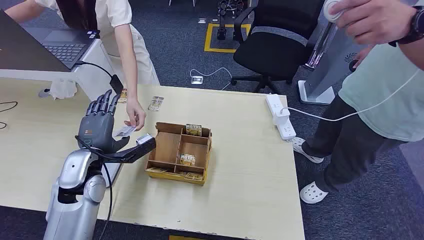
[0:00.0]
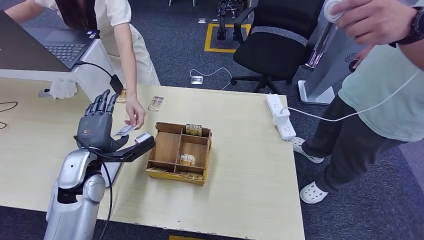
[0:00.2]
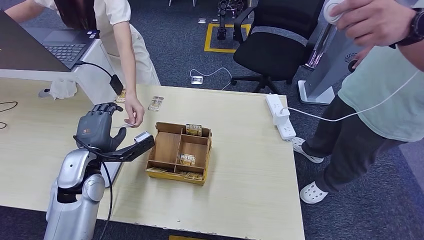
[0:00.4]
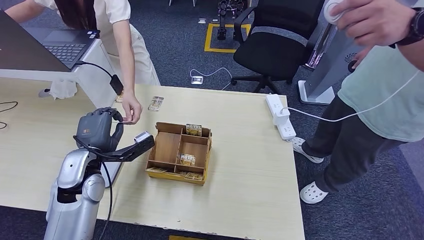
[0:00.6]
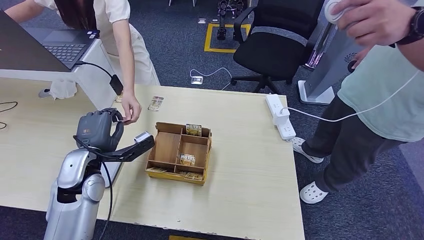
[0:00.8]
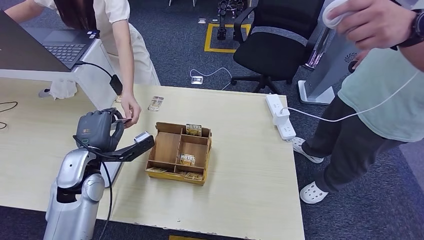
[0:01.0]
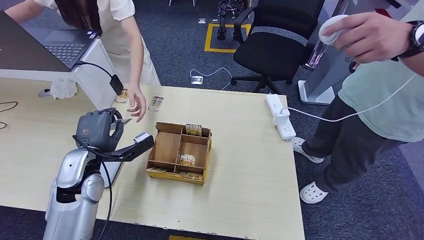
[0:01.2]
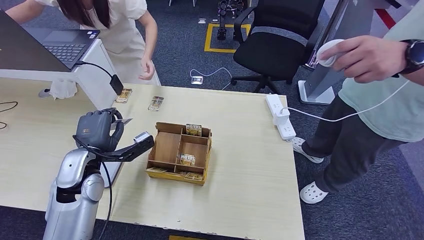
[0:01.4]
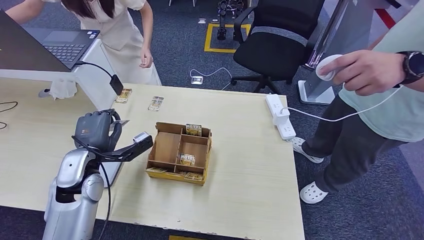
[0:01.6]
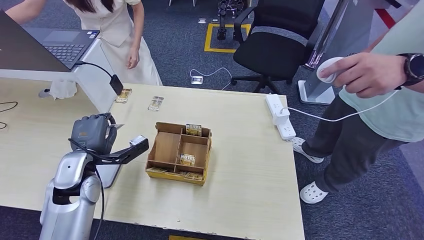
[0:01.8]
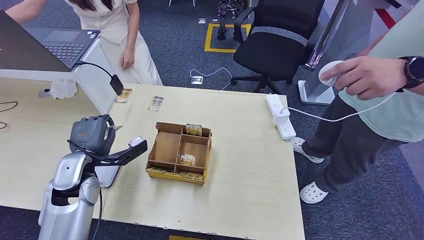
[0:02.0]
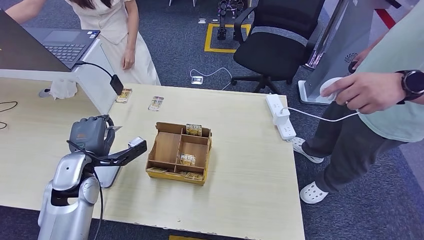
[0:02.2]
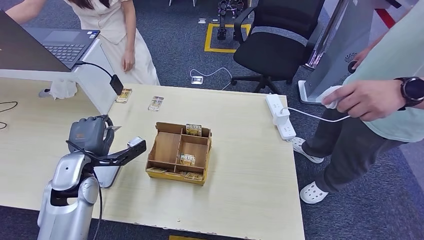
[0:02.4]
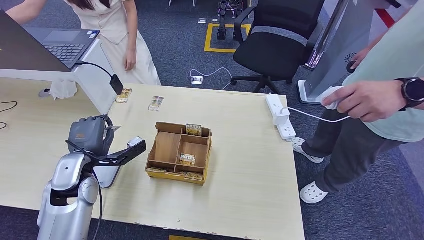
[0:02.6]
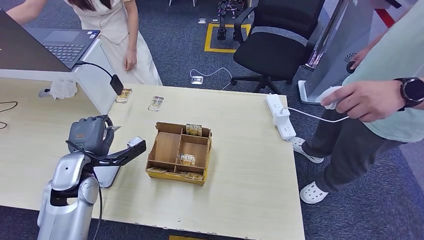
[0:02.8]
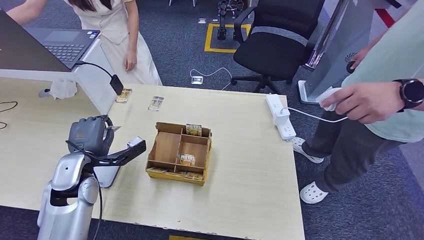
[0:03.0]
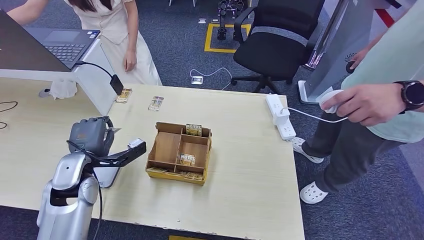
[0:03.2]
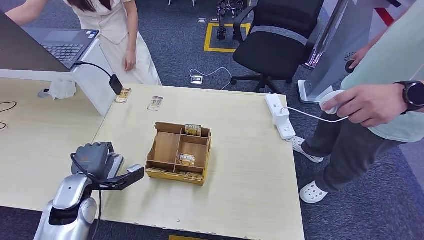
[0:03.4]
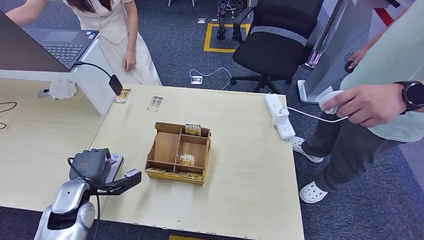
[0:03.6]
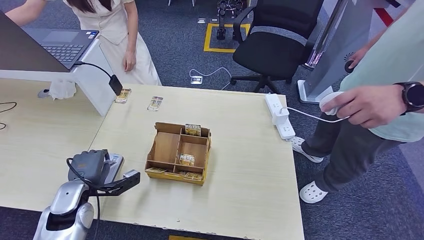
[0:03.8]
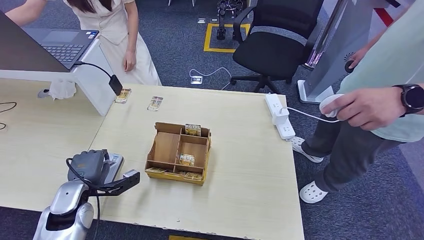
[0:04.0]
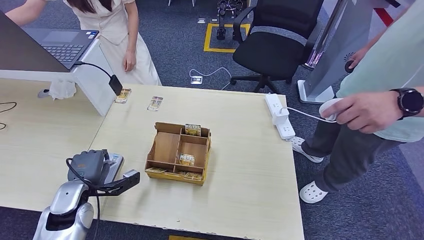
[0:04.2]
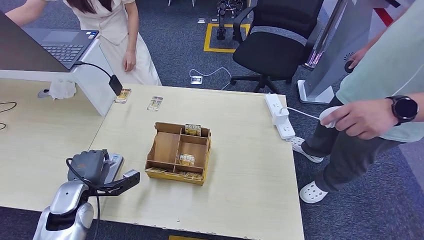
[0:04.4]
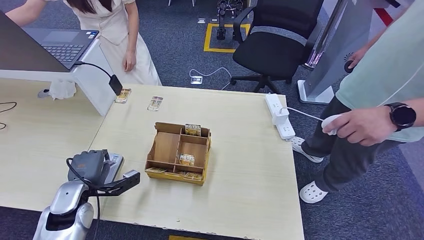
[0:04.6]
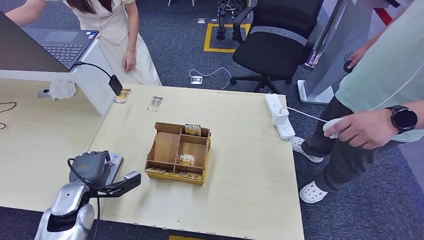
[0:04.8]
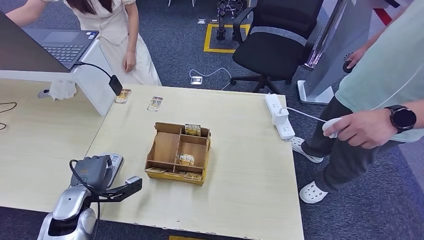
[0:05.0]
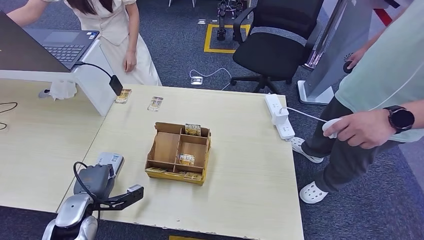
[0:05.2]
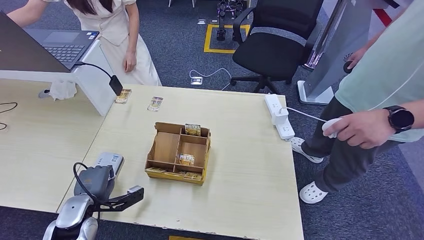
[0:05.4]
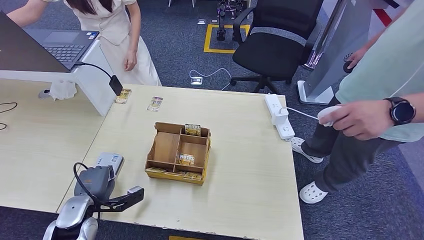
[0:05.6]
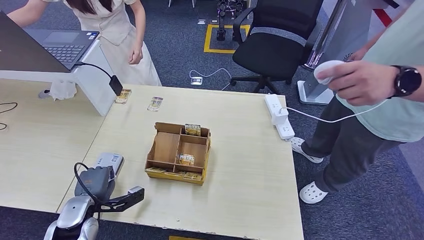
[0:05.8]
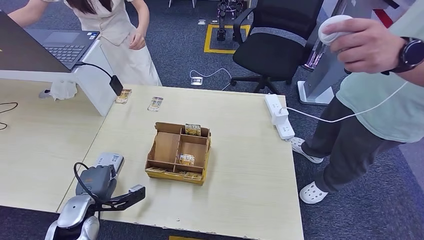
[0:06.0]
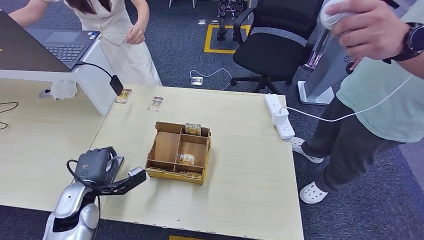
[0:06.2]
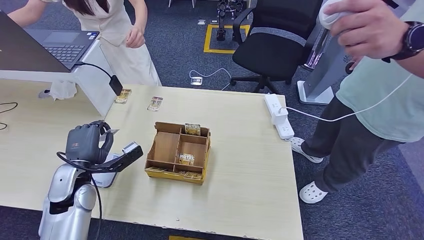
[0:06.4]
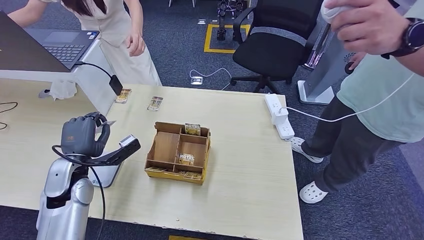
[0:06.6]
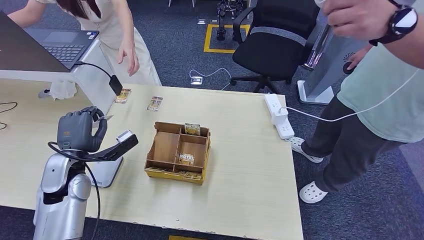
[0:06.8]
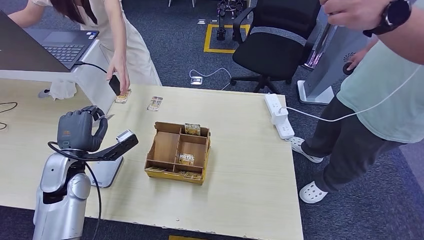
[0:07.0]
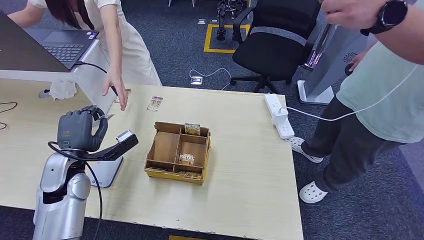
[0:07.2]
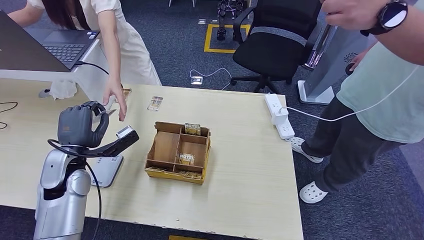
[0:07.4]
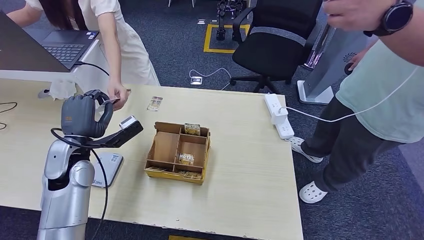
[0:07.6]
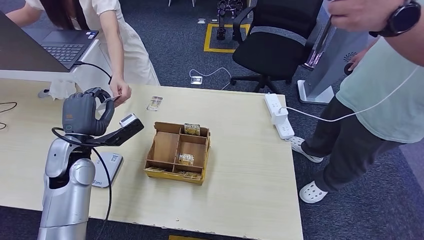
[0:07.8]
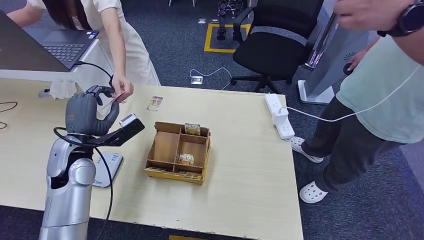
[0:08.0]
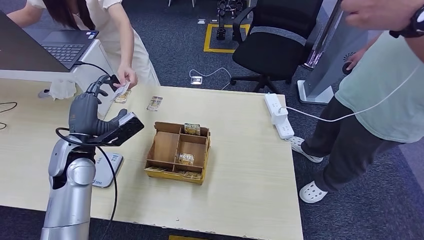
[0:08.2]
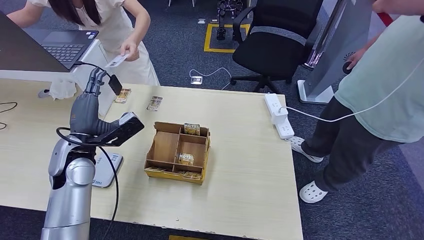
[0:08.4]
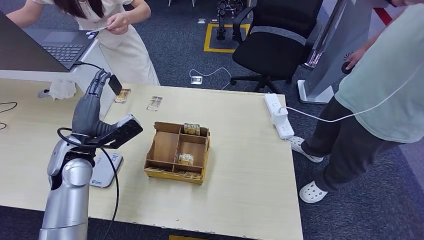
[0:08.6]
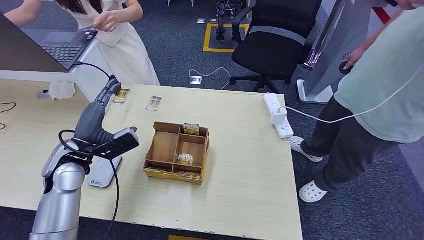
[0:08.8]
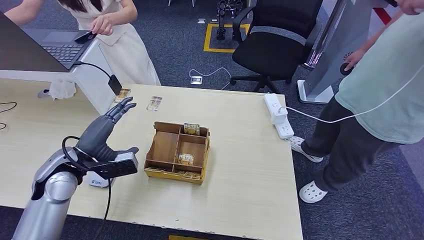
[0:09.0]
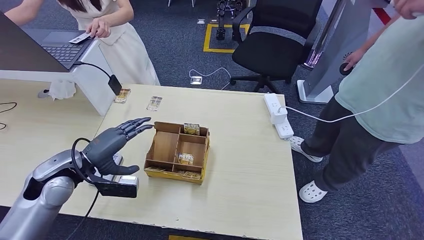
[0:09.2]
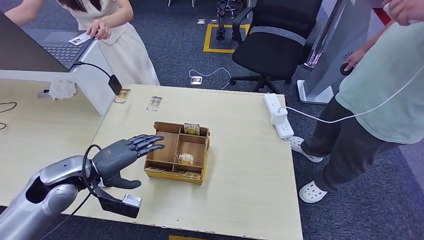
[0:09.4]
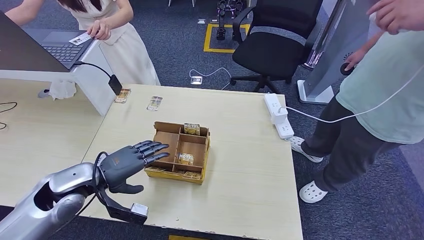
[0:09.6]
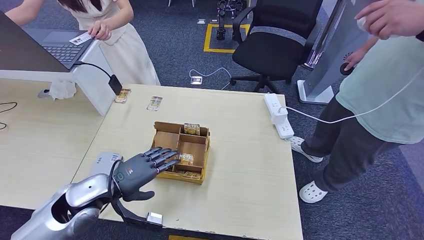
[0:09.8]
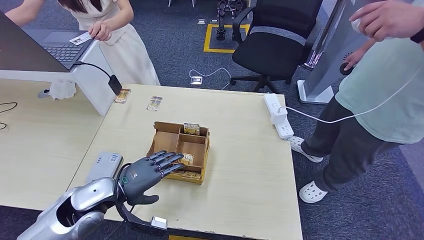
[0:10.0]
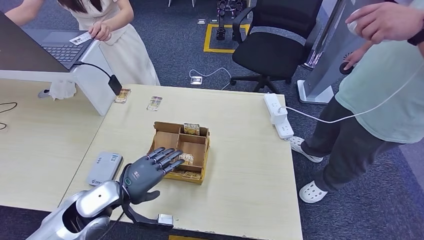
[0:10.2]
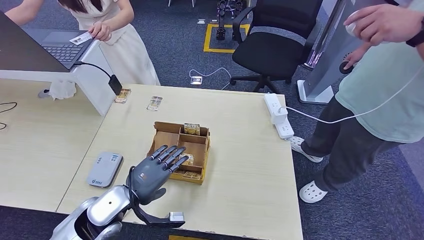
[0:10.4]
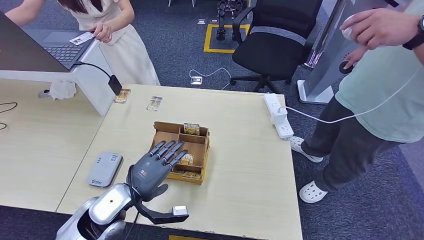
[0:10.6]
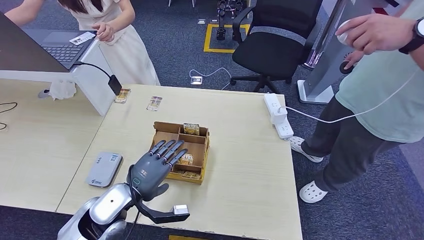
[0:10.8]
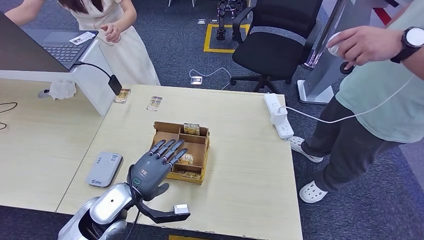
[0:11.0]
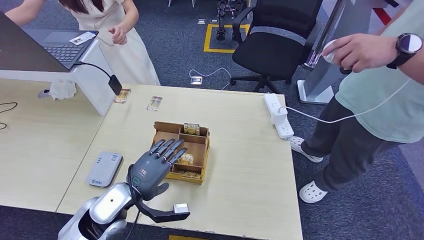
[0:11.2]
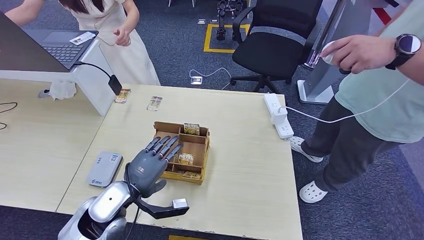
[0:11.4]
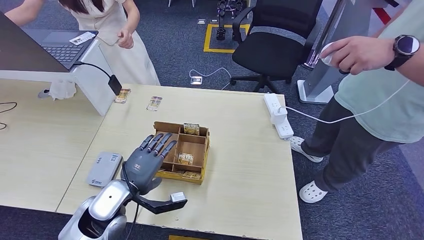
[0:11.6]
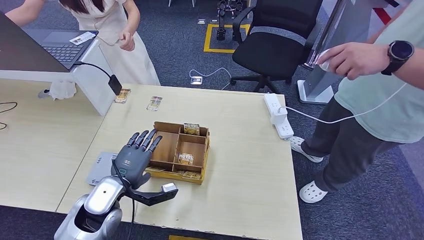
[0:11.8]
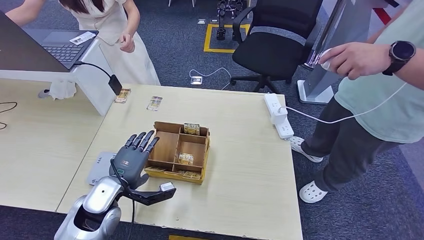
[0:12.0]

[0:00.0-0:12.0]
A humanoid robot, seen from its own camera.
Step, 0:00.0 to 0:01.2: Take the ID card from the person's hand.
Step, 0:01.4 to 0:04.8: Place the ID card on the card reader.
Step, 0:05.0 to 0:08.2: Hand the ID card to the person.
0:01.6 to 0:03.0: There are only small adjustments of the hands.
0:03.0 to 0:04.4: The left hand heads downward, covering roughly 5 cm.
0:04.4 to 0:06.0: The hands stay close to where they were, moving slightly.
0:09.0 to 0:10.4: The left hand shifts some 15 cm to the right, backward and downward.

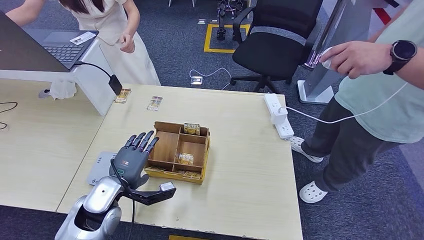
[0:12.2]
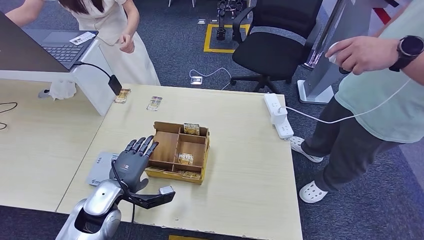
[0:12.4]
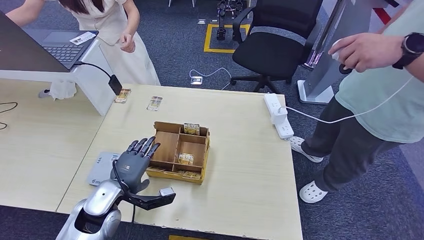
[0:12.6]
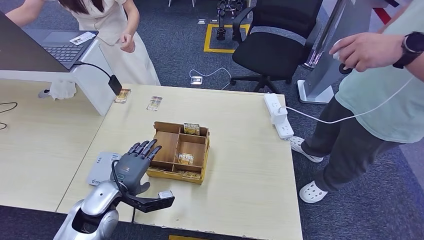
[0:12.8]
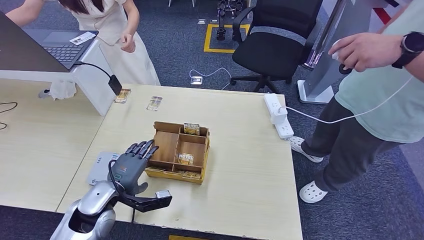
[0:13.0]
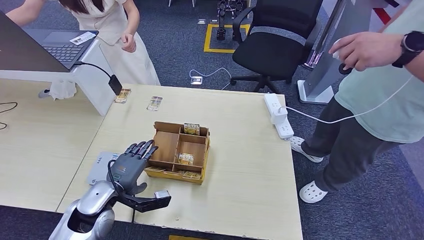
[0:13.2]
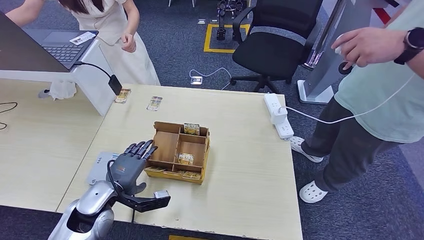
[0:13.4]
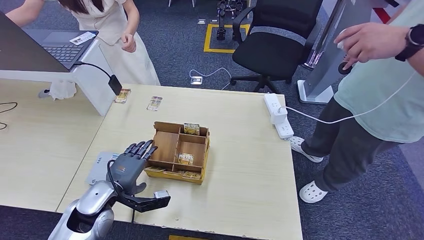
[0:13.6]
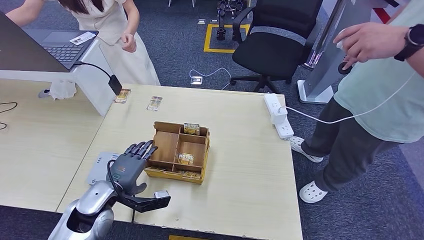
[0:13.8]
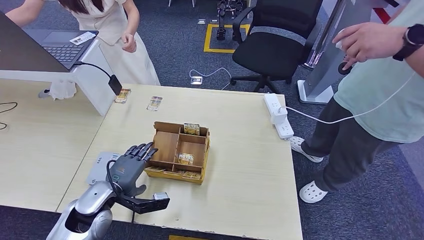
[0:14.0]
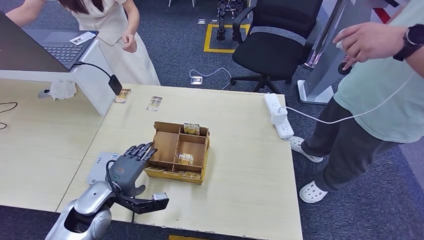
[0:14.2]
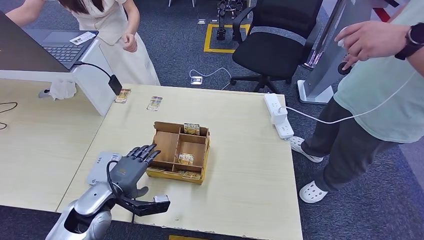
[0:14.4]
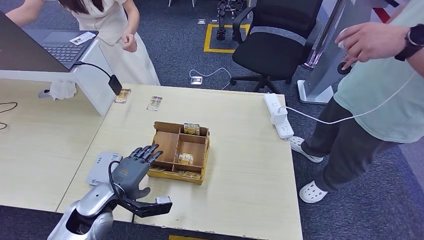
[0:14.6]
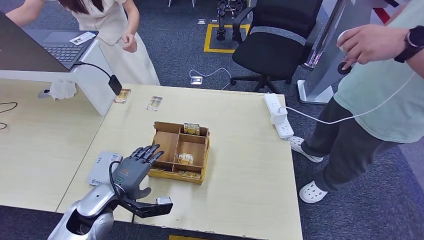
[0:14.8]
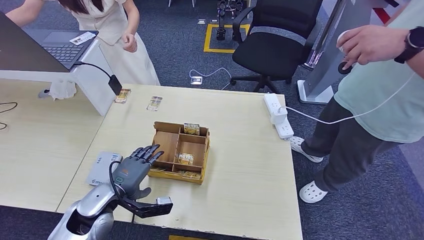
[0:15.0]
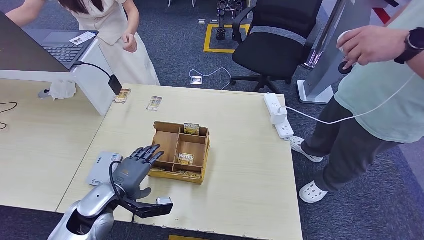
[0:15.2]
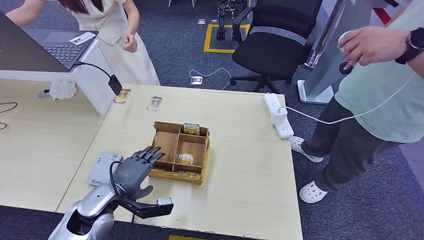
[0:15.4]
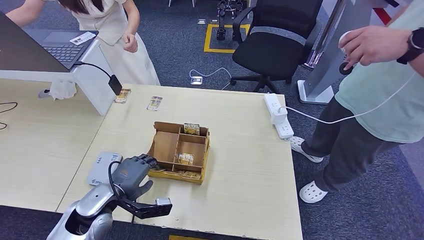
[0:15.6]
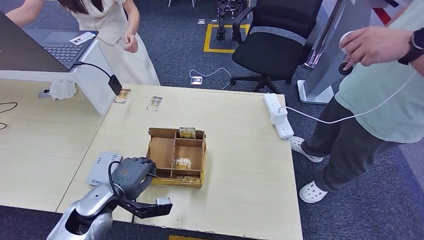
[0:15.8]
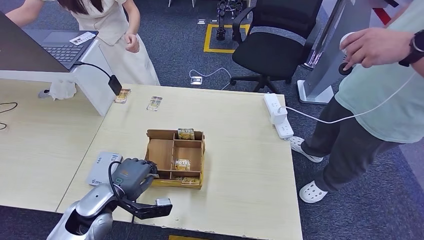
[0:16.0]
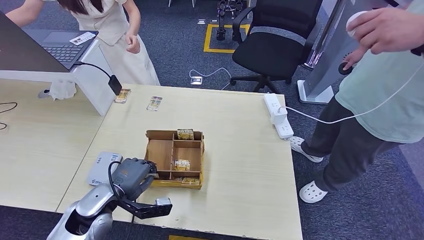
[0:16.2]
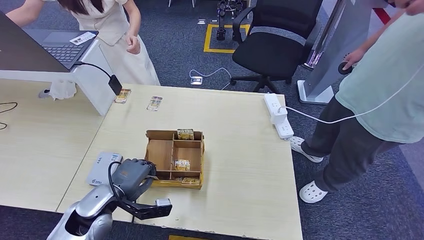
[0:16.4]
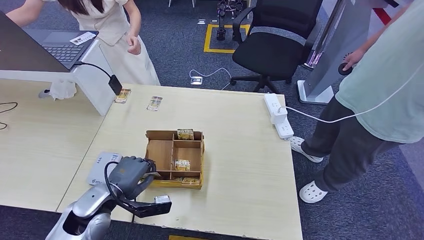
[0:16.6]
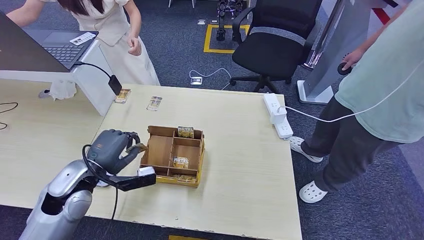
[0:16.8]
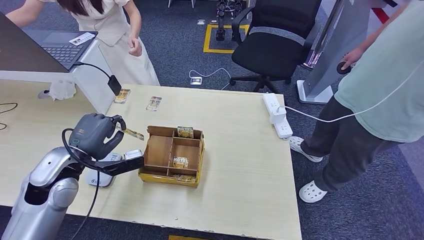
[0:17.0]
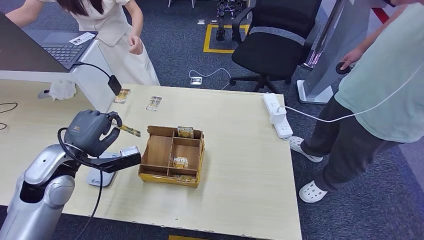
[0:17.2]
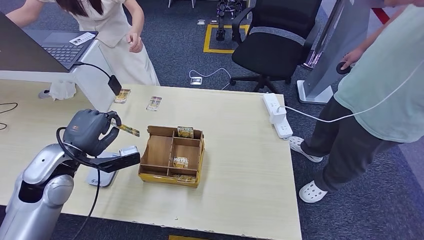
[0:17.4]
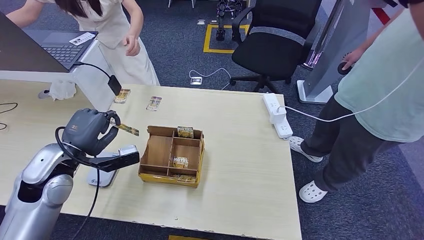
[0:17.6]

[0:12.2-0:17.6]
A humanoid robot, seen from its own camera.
Step, 0:12.2 to 0:16.6: Pick up the room key from the key card box.
0:12.2 to 0:15.0: The hands move only a little.
0:15.0 to 0:16.2: Neither hand changes place.
0:16.2 to 0:17.6: The left hand heads upward and to the left, covering roughly 15 cm.
